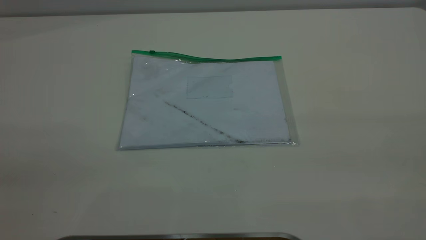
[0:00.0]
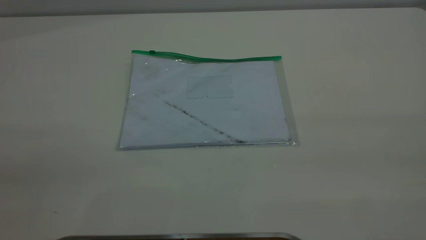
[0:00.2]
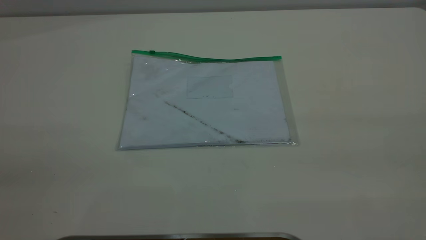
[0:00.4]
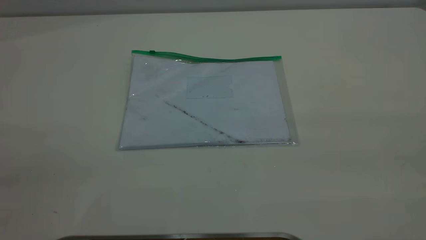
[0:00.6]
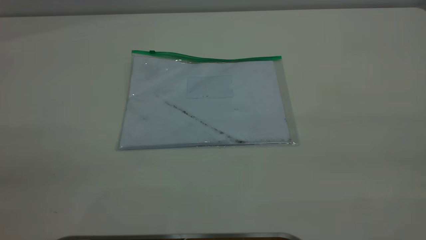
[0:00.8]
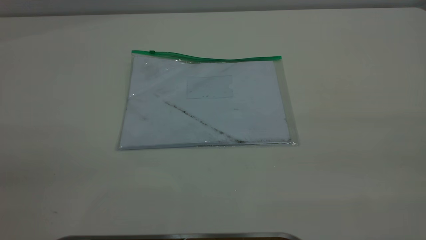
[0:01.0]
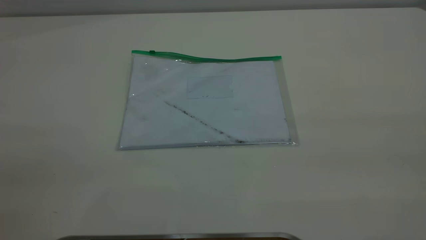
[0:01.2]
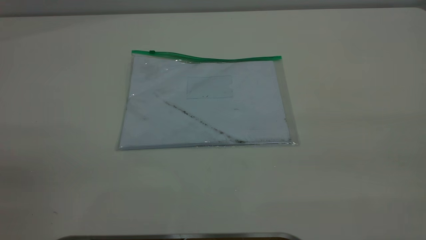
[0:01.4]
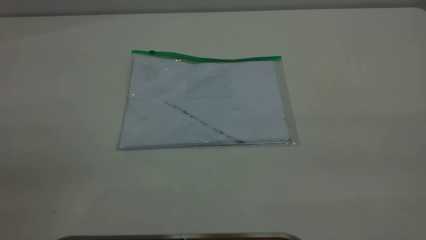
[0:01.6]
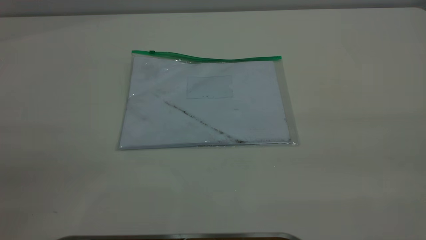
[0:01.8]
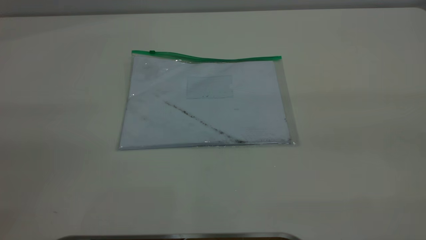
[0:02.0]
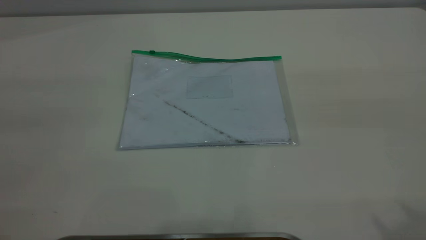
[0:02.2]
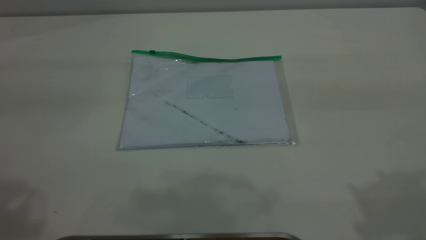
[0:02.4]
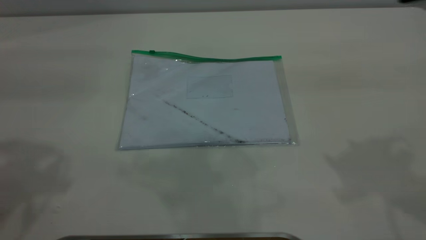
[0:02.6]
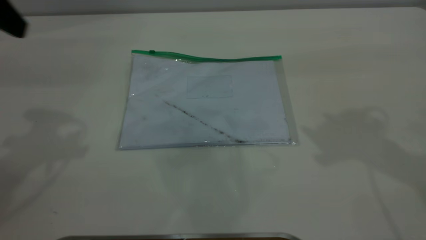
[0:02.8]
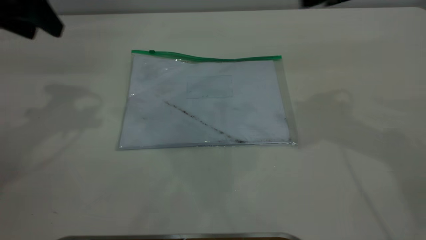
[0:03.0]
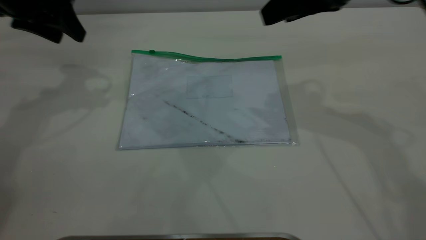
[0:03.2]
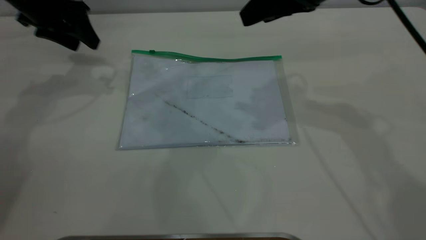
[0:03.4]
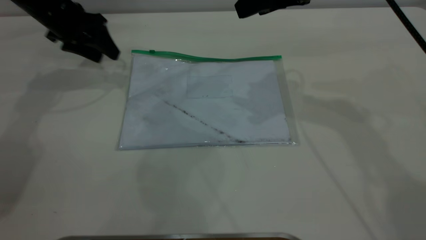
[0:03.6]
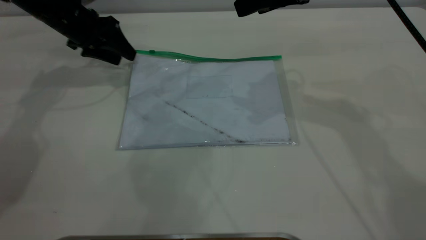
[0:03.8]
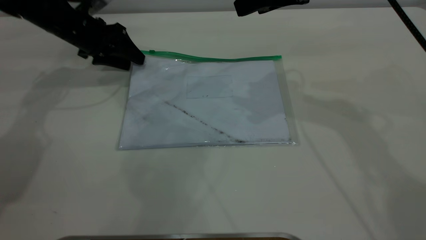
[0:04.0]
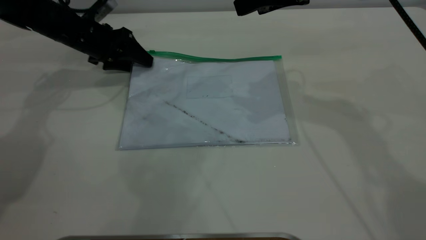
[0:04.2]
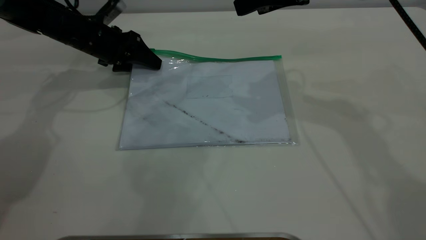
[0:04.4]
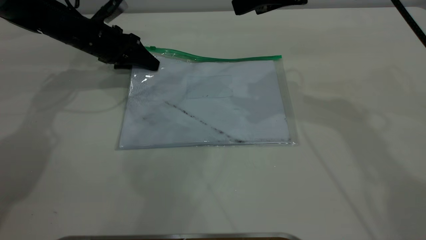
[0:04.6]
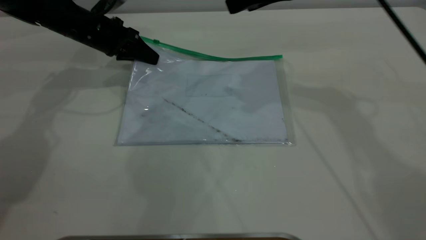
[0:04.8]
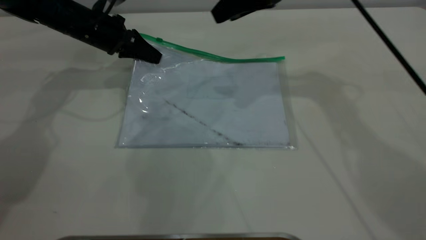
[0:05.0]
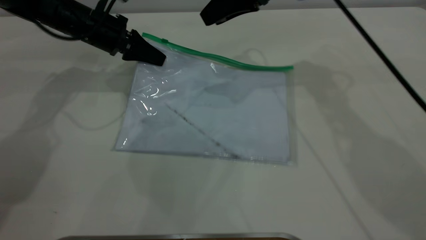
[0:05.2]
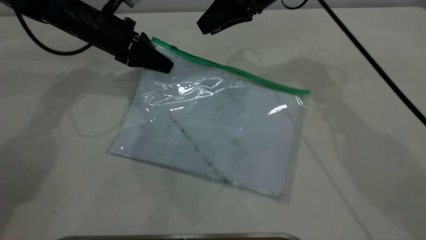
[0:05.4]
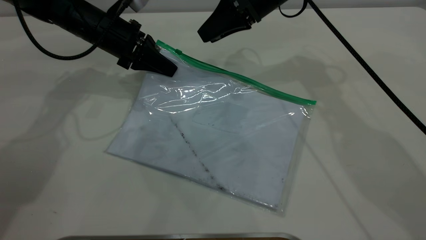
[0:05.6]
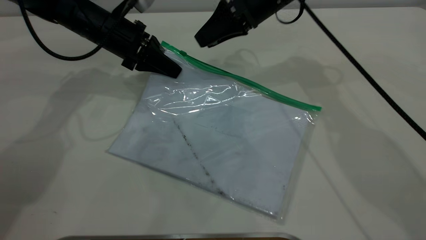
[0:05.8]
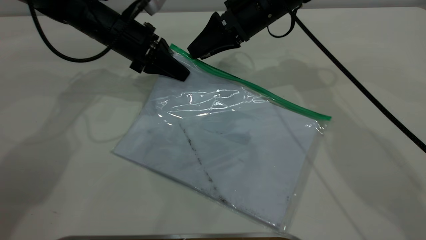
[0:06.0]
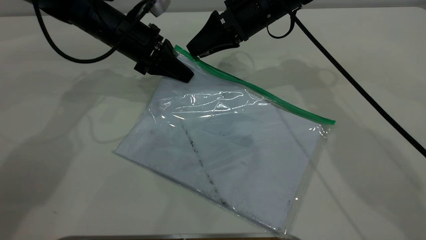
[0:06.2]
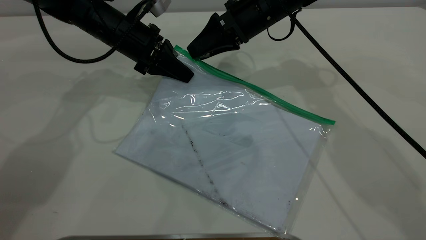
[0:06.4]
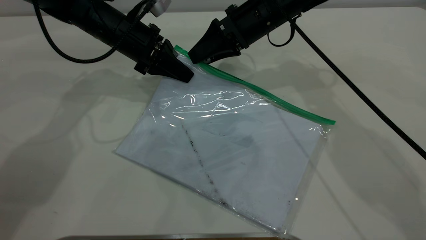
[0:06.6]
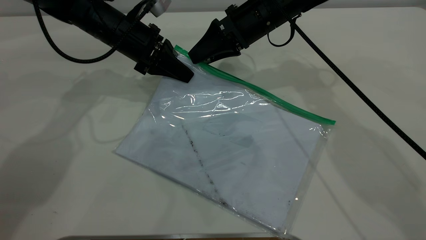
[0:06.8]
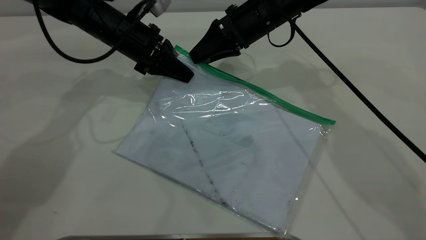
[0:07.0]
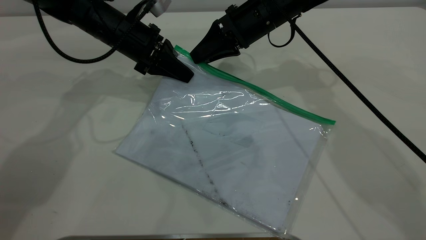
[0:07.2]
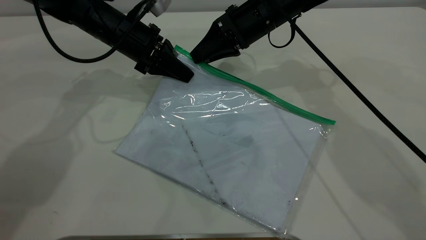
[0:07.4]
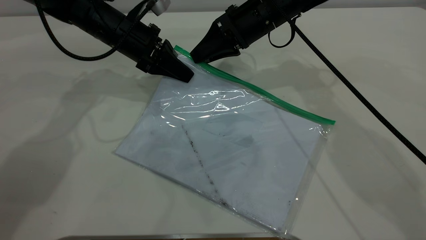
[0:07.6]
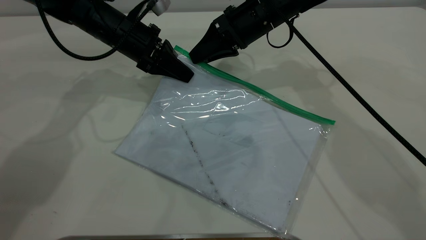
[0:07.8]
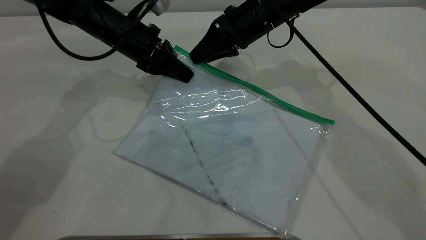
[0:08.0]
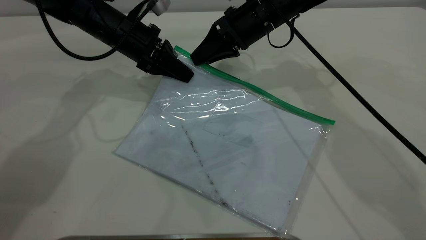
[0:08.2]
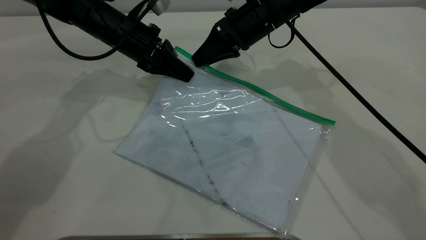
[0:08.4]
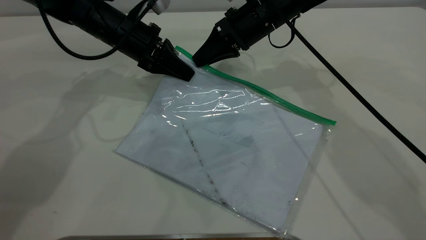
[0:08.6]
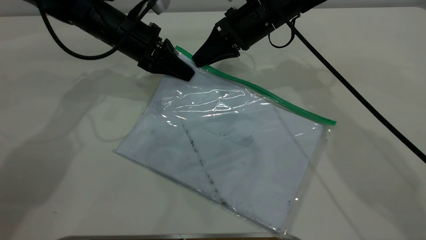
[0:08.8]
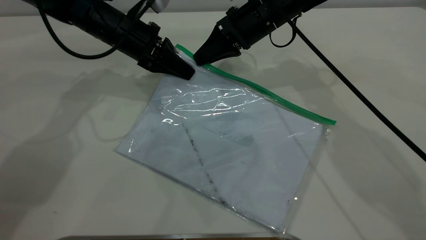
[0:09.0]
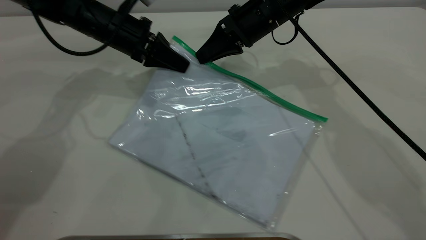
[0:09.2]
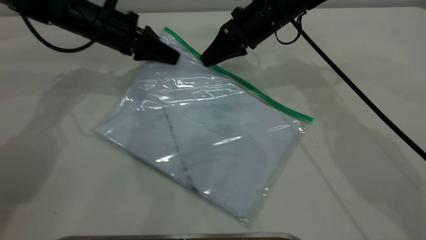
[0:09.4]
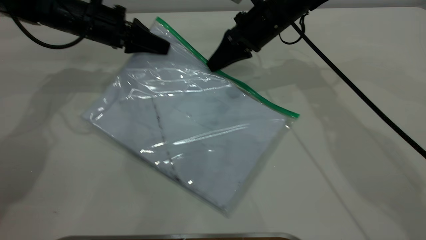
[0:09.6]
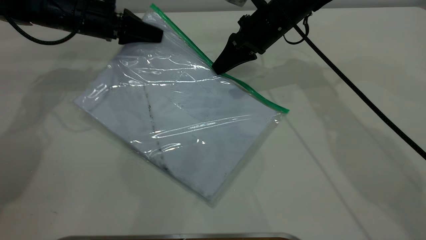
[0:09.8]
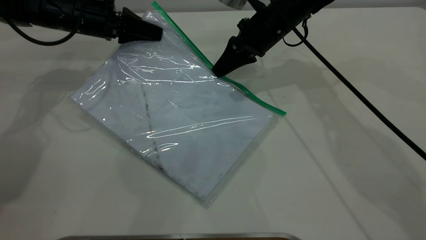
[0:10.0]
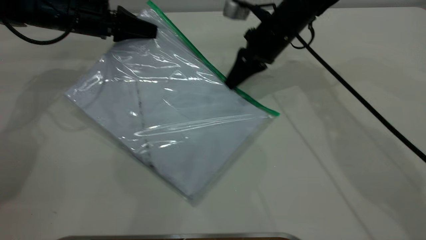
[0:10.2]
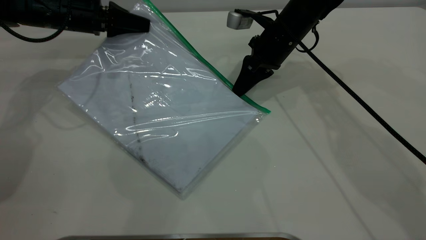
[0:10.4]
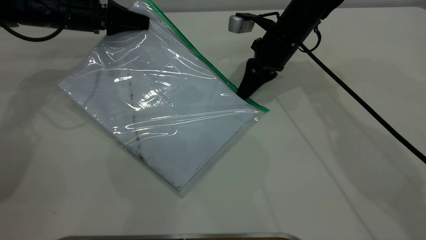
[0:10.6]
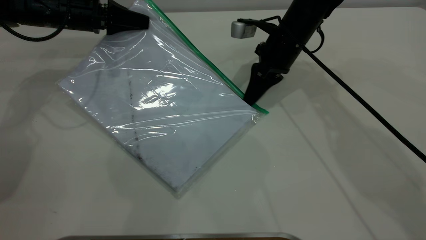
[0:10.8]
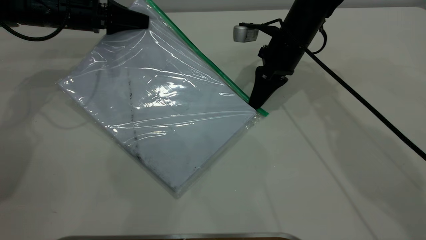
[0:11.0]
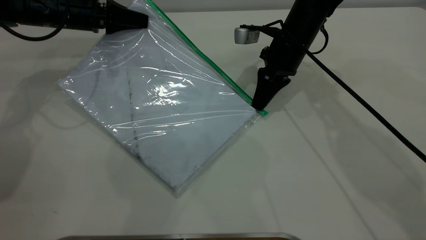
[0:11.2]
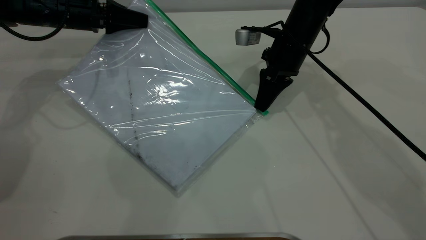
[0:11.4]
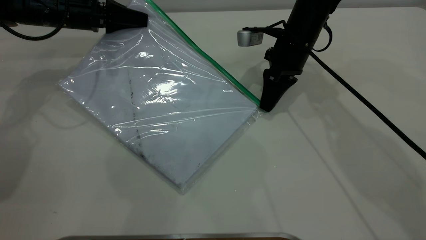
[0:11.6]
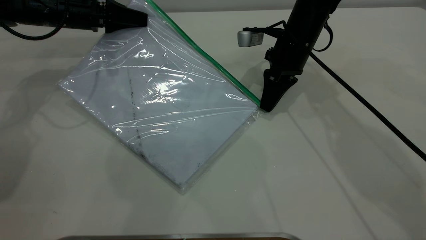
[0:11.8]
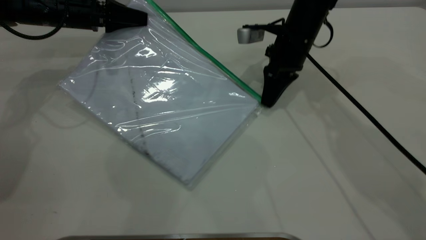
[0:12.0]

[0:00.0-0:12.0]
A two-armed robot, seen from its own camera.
Step, 0:00.0 to 0:05.0: Pick up the transparent plastic bag with the left gripper.
0:00.0 to 0:01.6: Both grippers stay about where they are.
0:01.6 to 0:03.0: The left gripper moves forward, approximately 40 cm.
0:03.0 to 0:04.4: The left gripper is displaced downward and forward by roughly 20 cm. Meanwhile the right gripper is displaced to the left and forward by some 10 cm.
0:04.4 to 0:06.0: The right gripper shifts approximately 15 cm downward, forward and to the left. The left gripper goes some 5 cm to the right, and closes its fingers.
0:06.0 to 0:07.6: The right gripper closes its fingers.
0:07.6 to 0:09.0: The right gripper closes up.
0:09.0 to 0:10.4: The left gripper is displaced to the left by some 10 cm, while the right gripper changes place by roughly 5 cm.
0:10.4 to 0:12.0: The grippers move only a little.

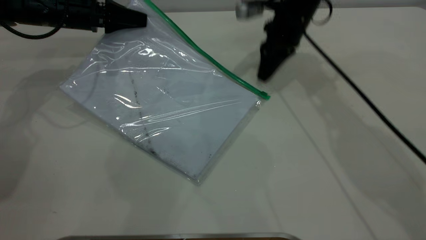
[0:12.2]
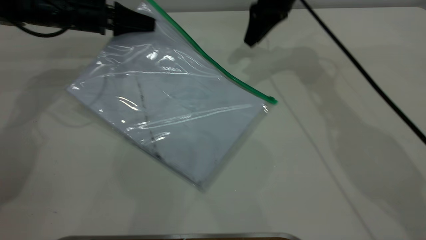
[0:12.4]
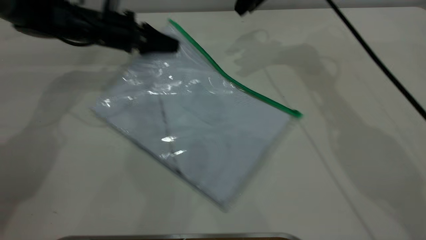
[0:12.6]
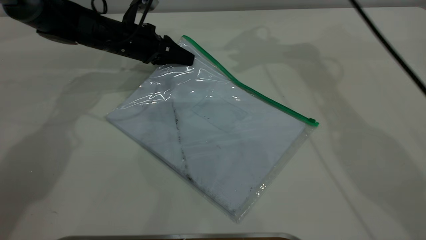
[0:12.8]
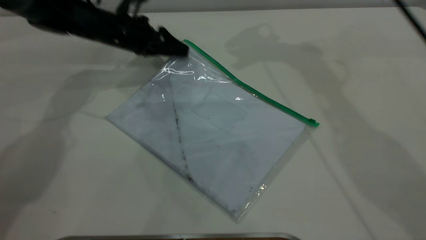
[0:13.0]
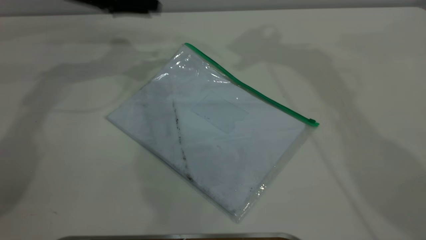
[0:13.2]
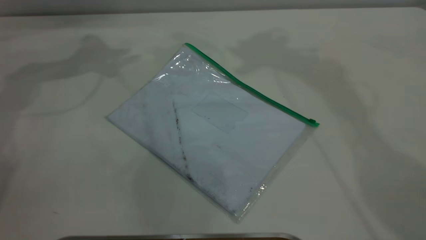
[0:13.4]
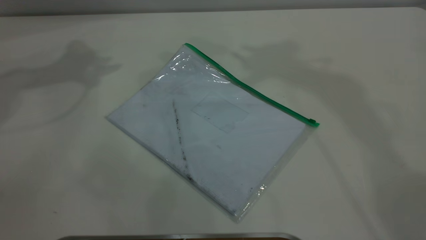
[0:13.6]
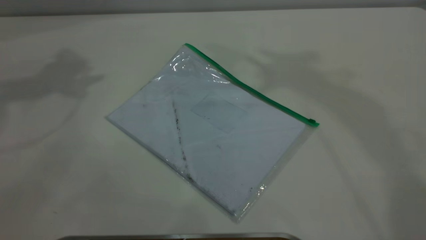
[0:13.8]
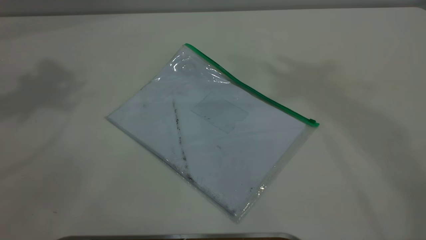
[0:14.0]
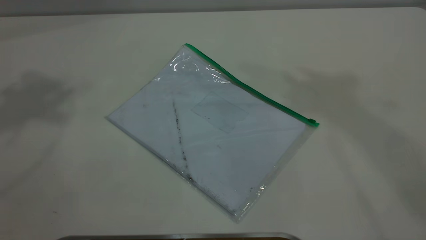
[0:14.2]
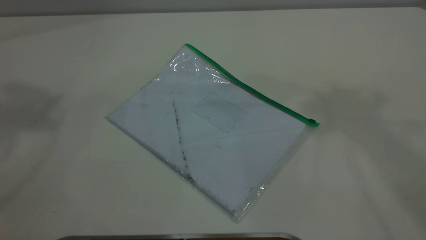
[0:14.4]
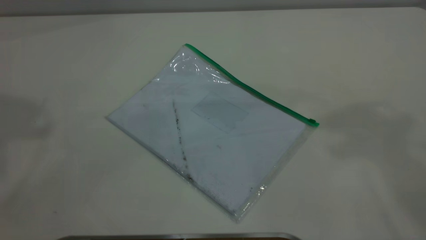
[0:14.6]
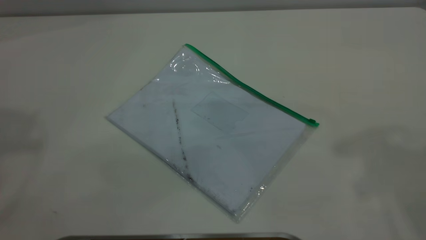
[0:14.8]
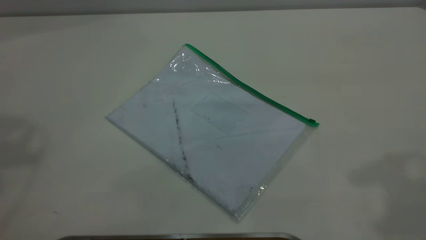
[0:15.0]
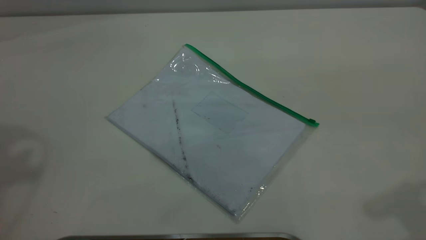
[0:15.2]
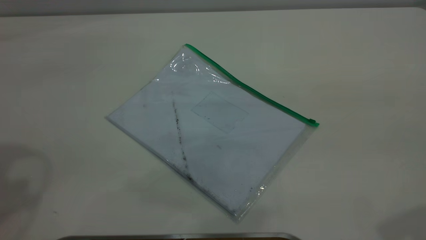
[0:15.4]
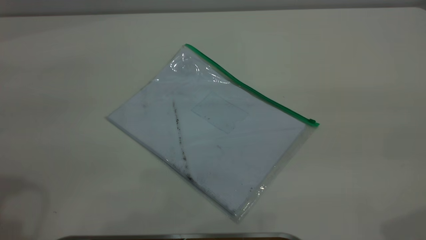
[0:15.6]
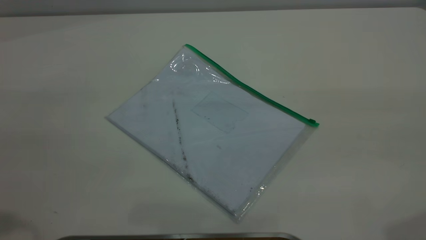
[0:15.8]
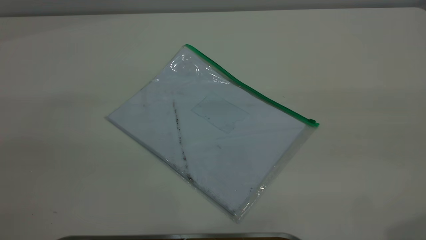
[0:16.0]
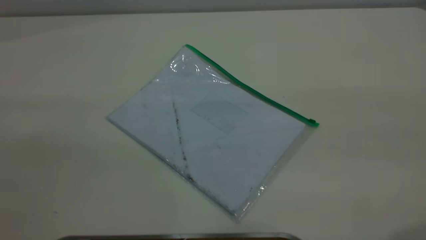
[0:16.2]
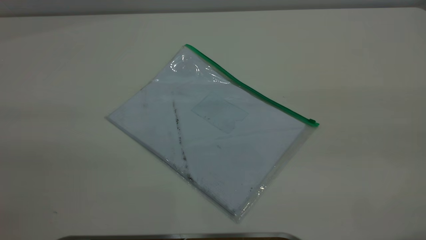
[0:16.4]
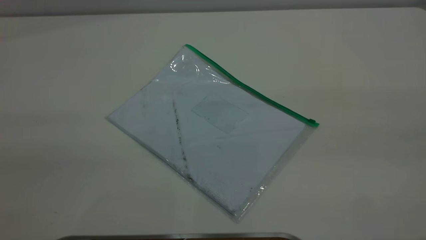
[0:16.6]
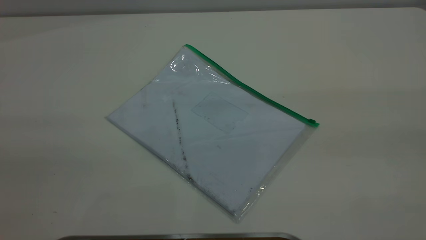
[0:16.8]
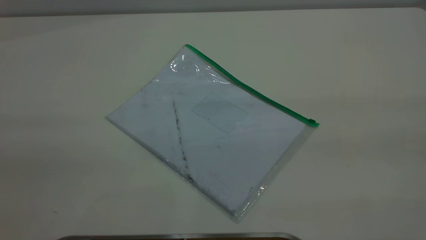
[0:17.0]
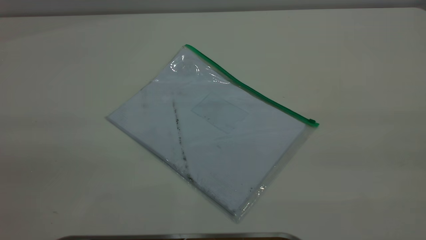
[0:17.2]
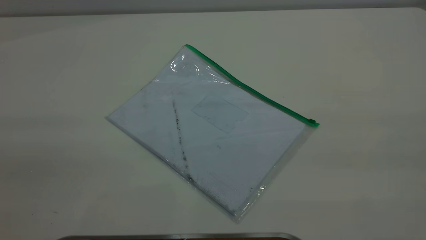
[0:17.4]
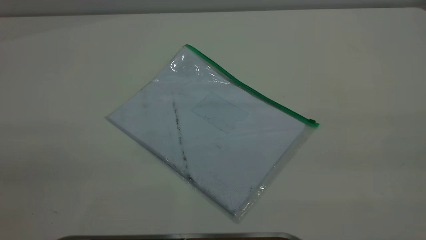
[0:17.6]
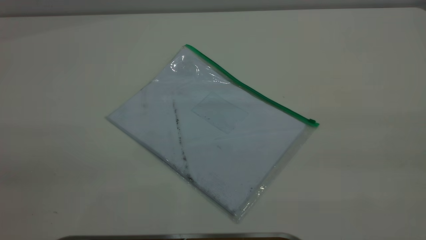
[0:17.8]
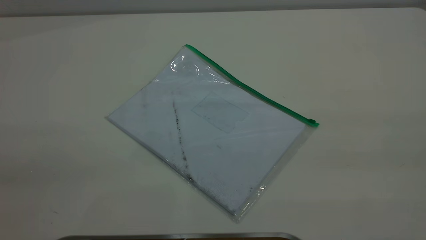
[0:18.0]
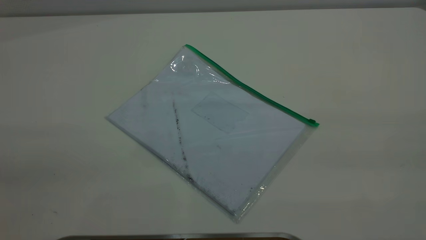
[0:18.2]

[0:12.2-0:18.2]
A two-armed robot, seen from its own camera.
Step, 0:12.4 to 0:13.0: Place the transparent plastic bag.
0:12.2 to 0:13.8: The right gripper is displaced upward by some 50 cm; the left gripper moves upward, about 30 cm, and opens its fingers.
